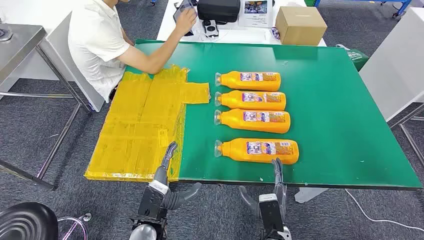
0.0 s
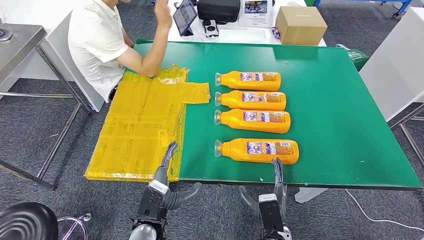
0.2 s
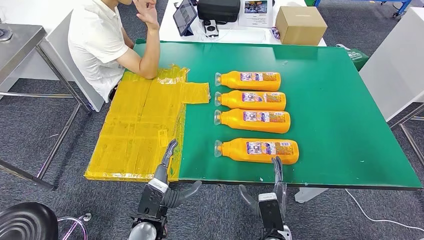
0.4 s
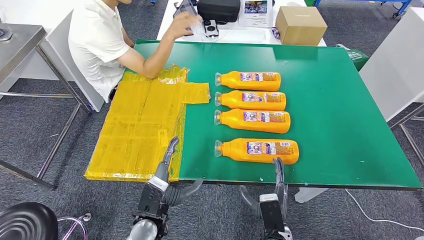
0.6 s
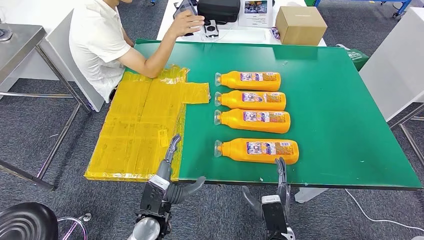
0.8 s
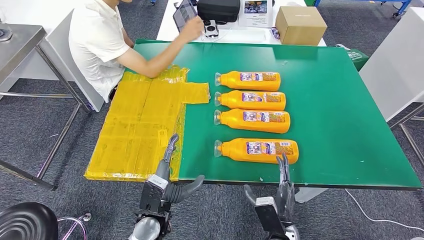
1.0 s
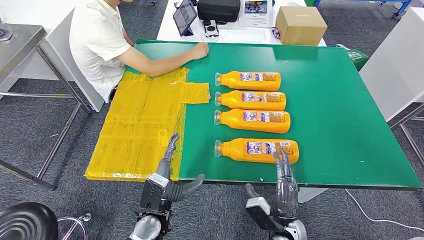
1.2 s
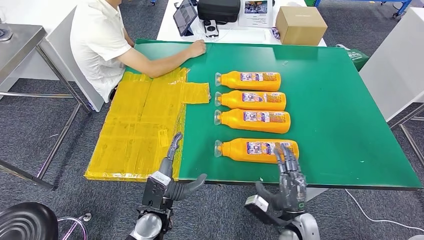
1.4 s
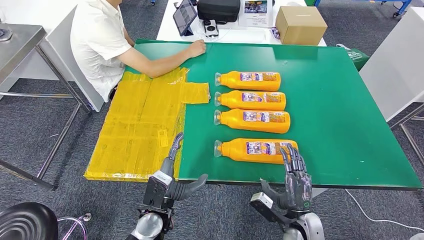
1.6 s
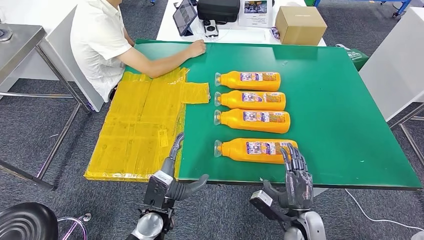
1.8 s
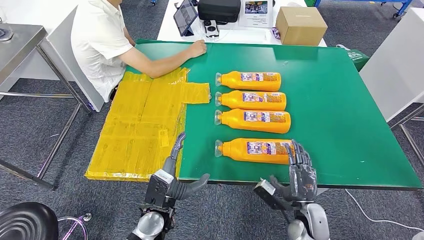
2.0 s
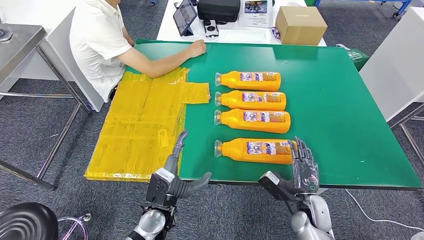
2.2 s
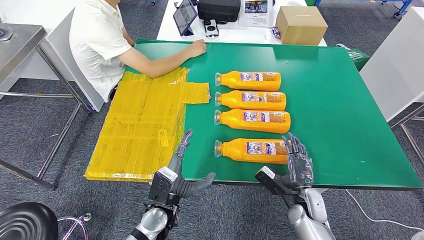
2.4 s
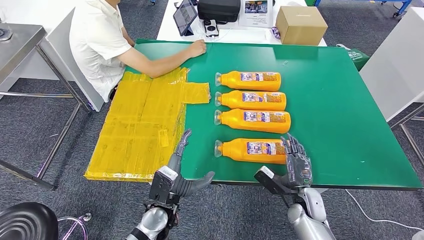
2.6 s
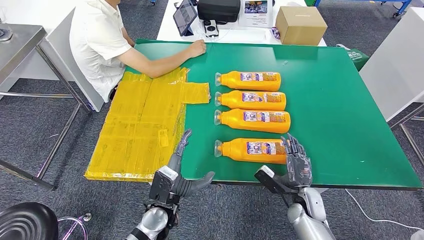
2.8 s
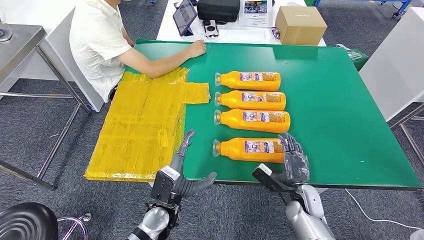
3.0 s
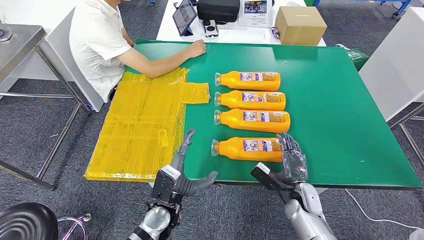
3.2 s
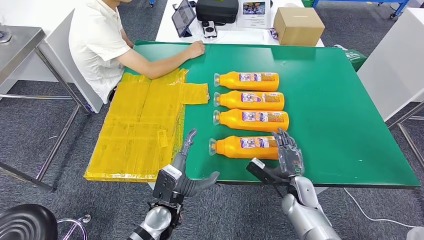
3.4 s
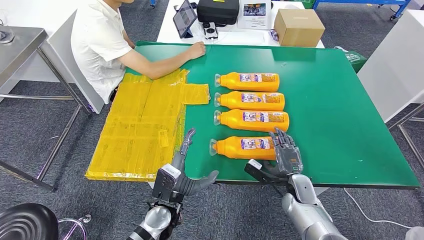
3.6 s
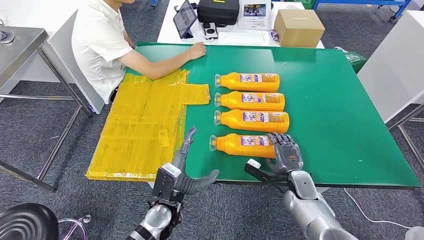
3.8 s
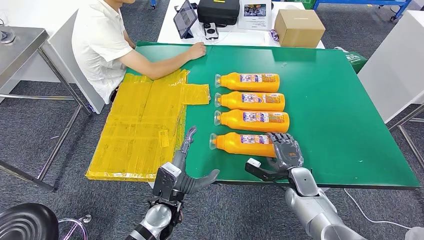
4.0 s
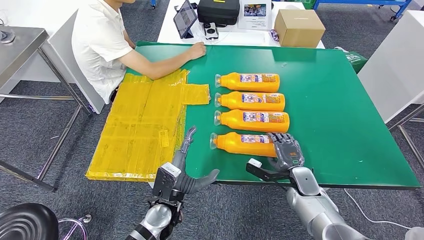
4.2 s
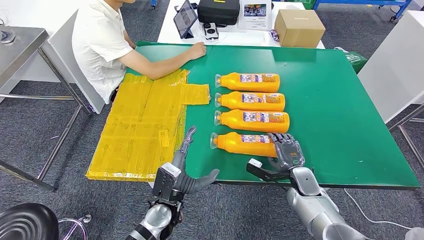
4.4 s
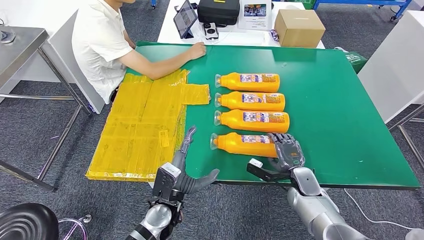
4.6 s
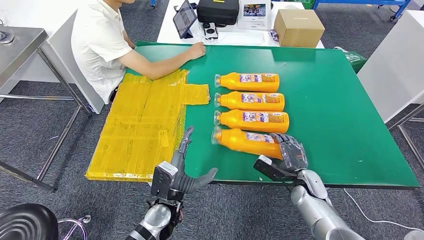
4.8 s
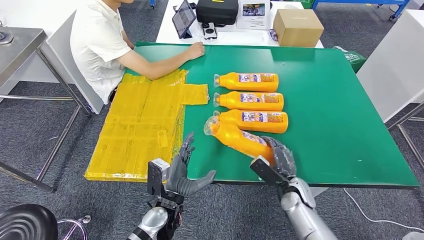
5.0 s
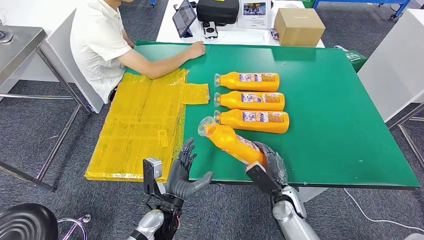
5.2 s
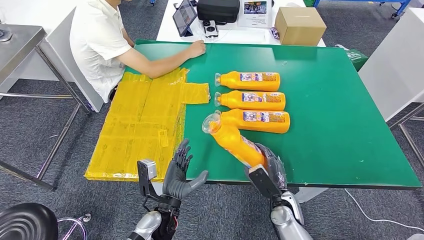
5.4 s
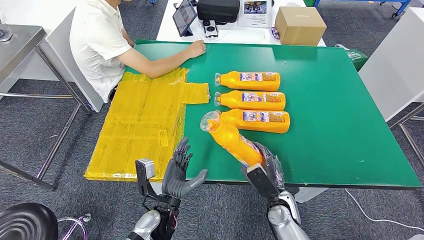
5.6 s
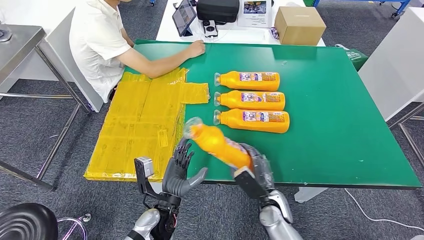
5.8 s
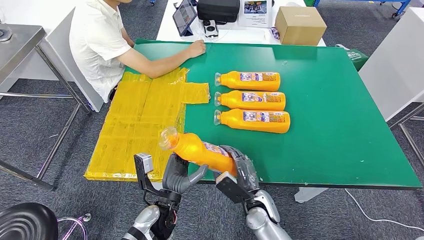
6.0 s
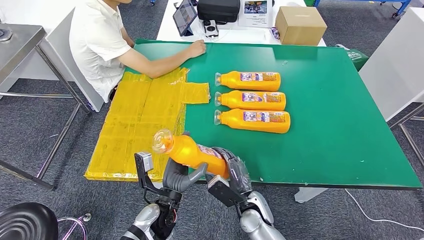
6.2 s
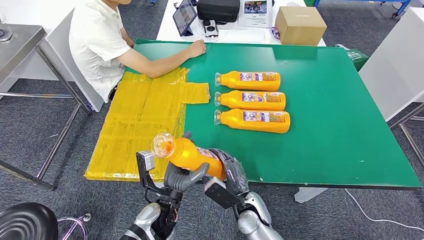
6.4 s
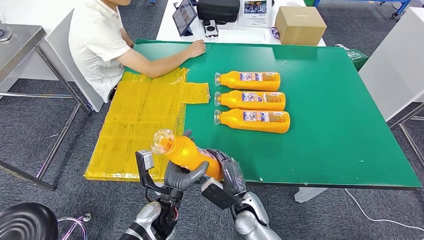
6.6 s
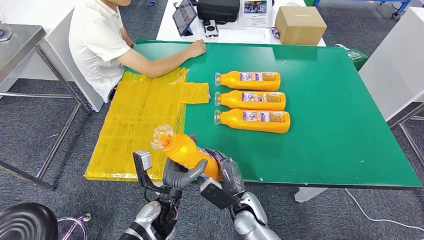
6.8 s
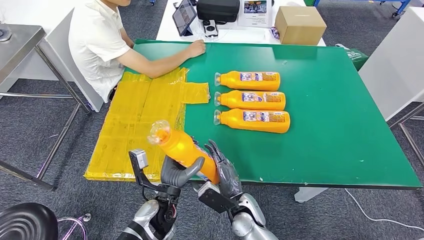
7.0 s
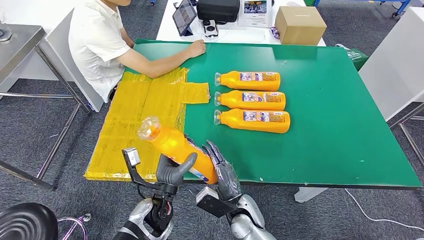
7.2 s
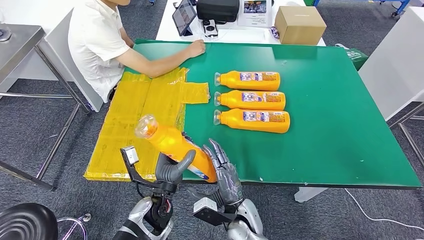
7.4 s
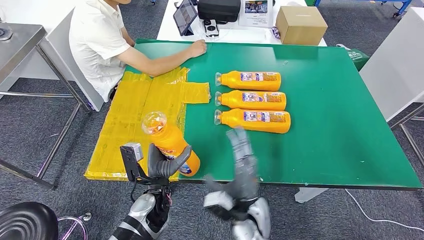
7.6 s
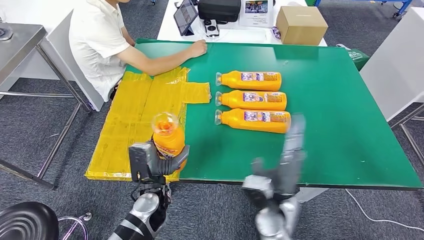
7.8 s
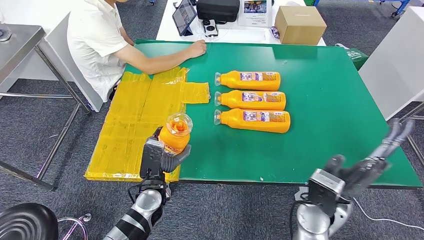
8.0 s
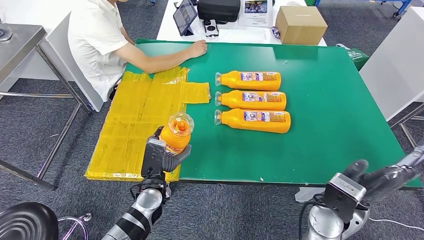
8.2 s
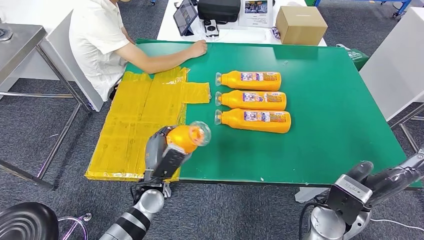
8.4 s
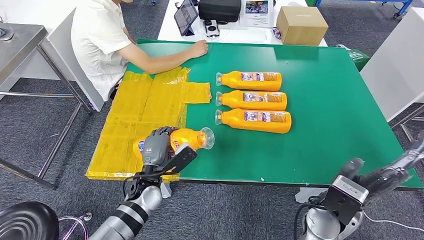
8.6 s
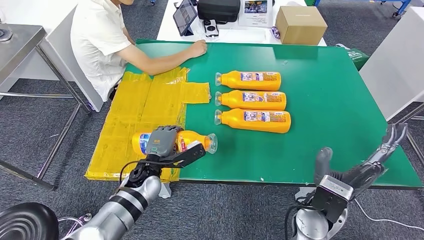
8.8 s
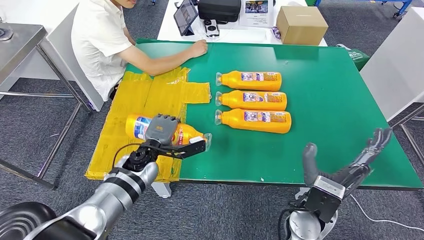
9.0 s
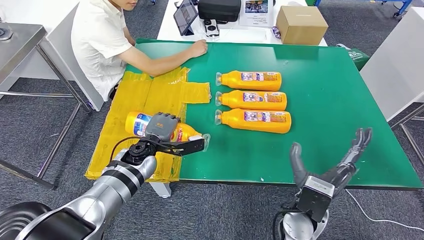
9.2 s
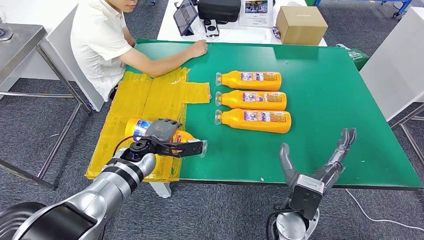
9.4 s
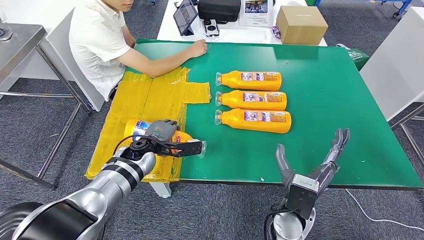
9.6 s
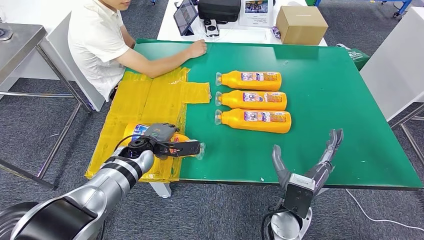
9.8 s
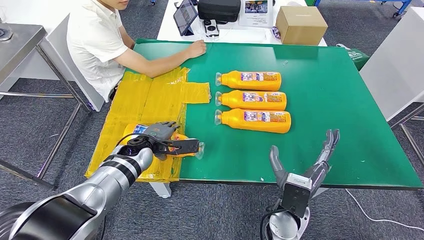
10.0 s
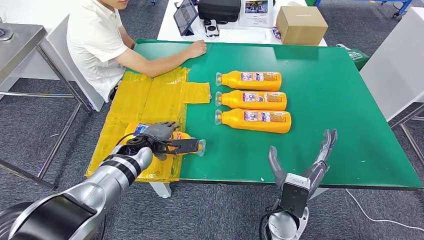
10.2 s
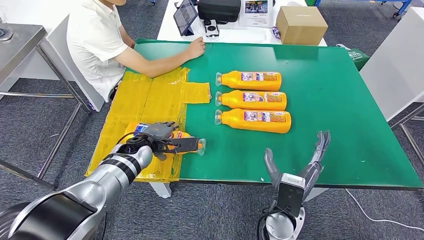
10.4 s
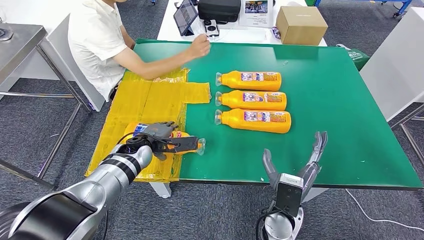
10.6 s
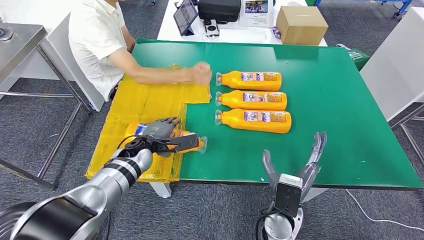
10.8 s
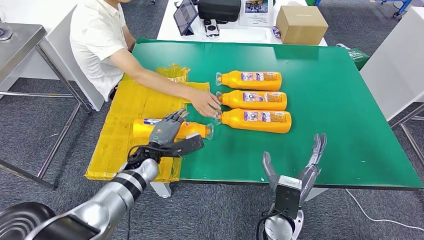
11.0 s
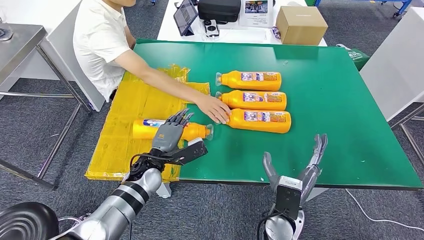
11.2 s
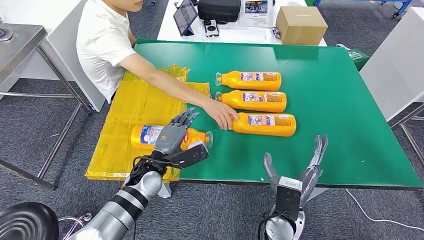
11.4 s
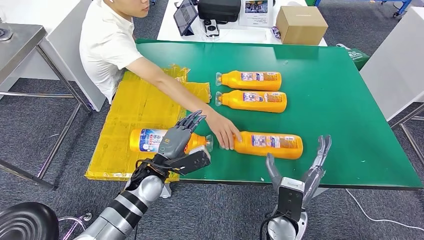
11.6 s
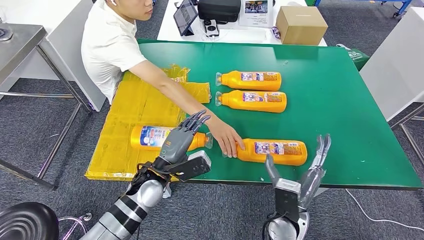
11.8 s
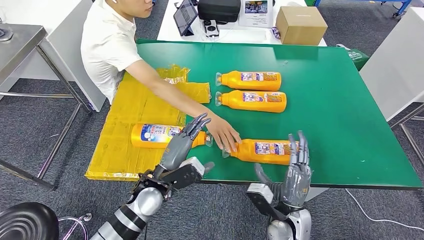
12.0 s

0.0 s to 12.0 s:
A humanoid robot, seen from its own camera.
Step, 0.0 to 6.0 s: Take the bottle from the table.
Step, 6.2 to 10.2 s: Flip the bottle to face forward.
1.6 to 3.0 s: The right hand moves forward, about 5 cm.
6.0 to 7.6 s: The right hand is displaced upward by about 5 cm.
7.6 to 9.0 s: The left hand heads forward, covering about 10 cm. The right hand is displaced to the right and upward by some 15 cm.
9.0 to 10.4 s: The right hand ends up approximately 5 cm from where it was.

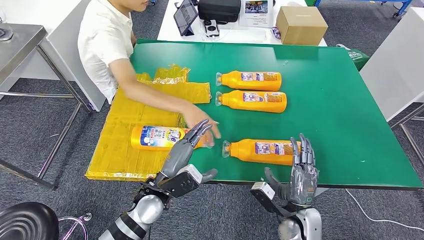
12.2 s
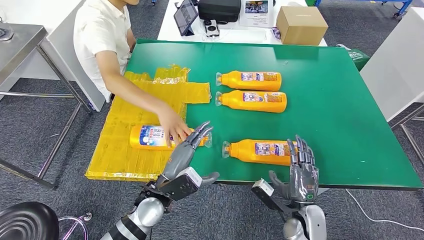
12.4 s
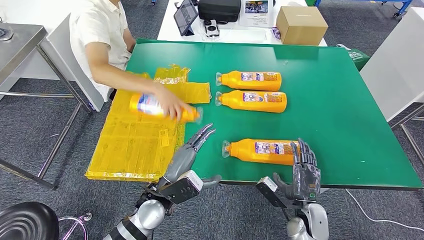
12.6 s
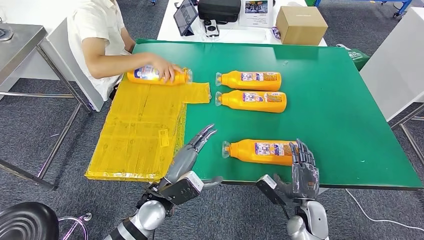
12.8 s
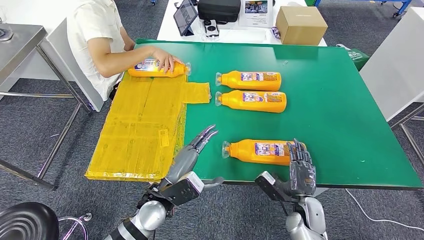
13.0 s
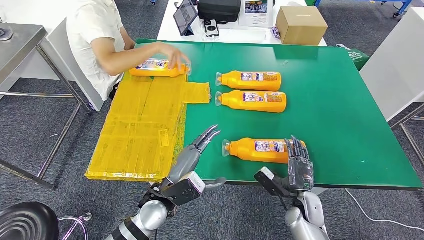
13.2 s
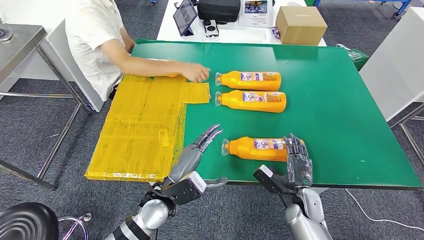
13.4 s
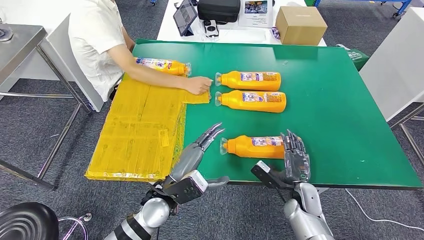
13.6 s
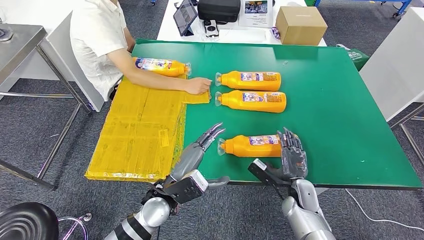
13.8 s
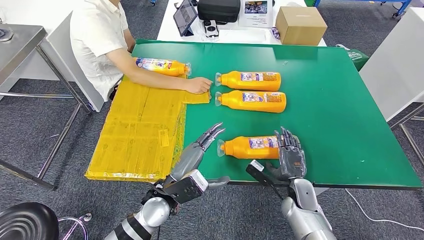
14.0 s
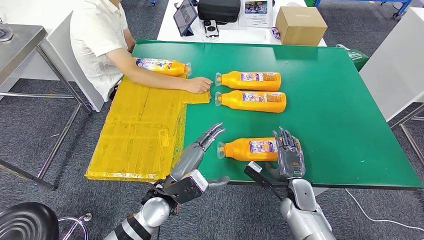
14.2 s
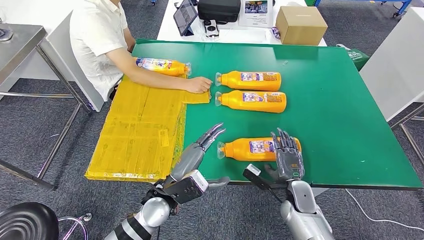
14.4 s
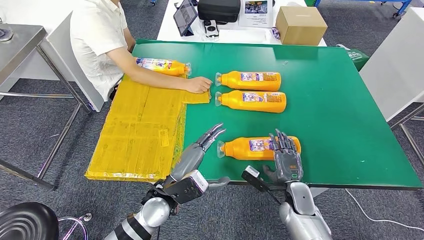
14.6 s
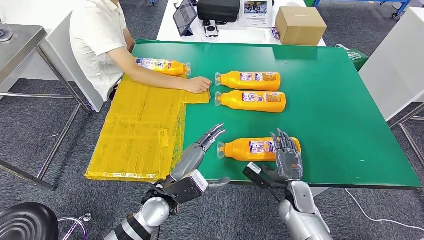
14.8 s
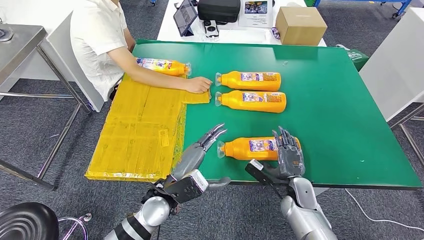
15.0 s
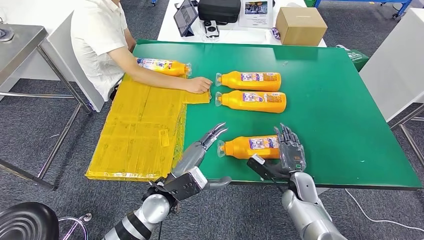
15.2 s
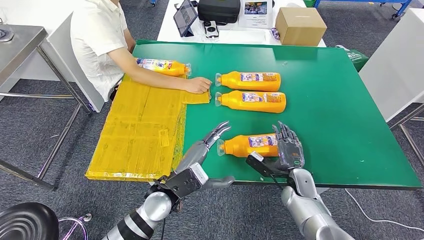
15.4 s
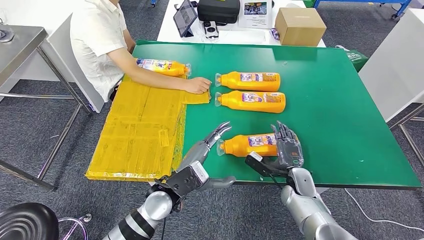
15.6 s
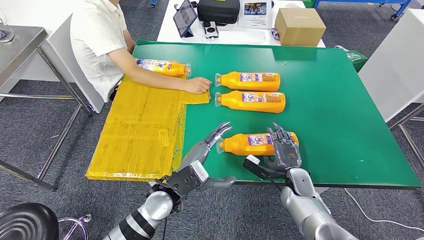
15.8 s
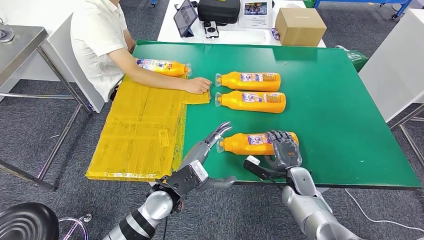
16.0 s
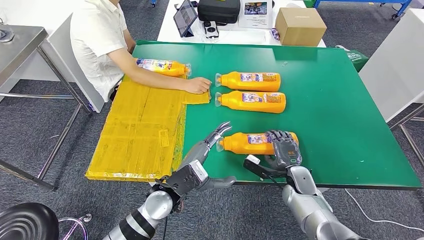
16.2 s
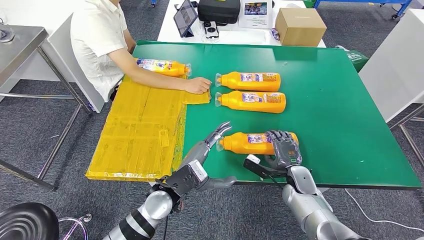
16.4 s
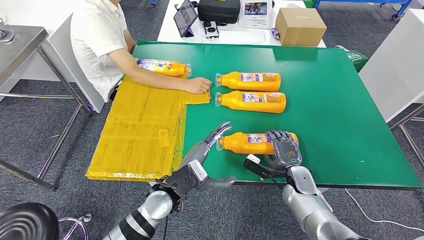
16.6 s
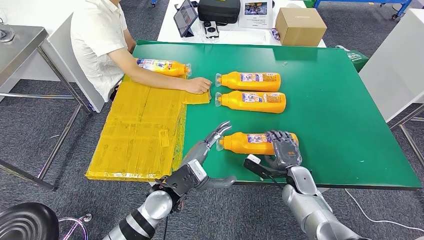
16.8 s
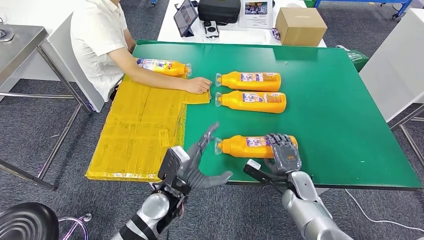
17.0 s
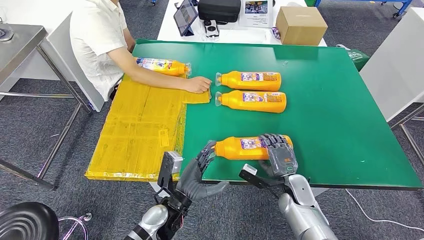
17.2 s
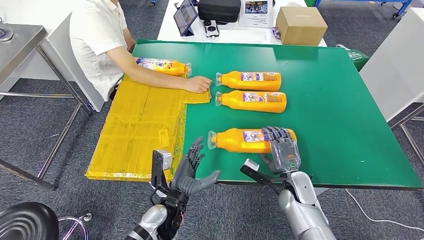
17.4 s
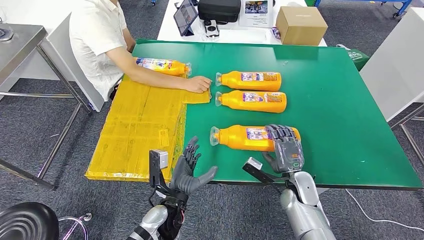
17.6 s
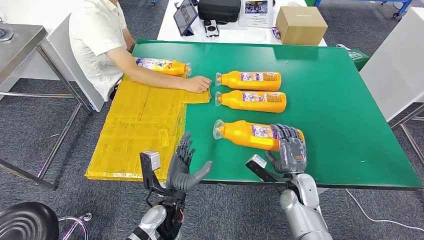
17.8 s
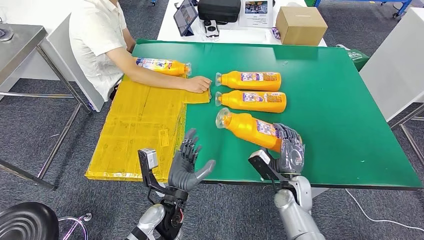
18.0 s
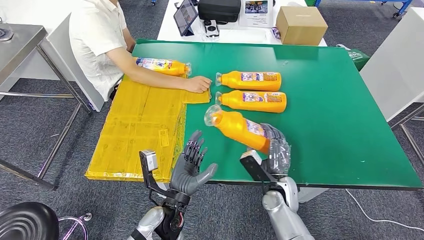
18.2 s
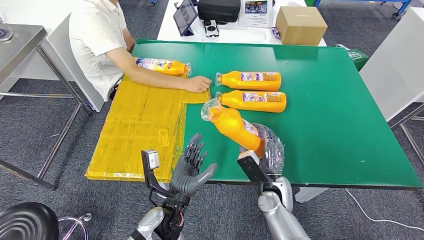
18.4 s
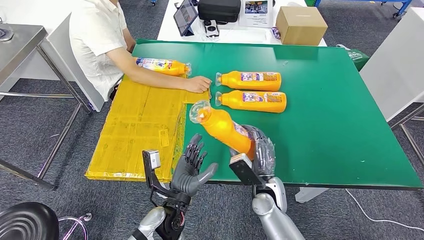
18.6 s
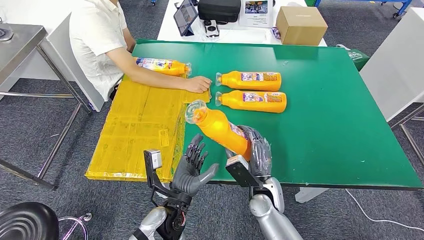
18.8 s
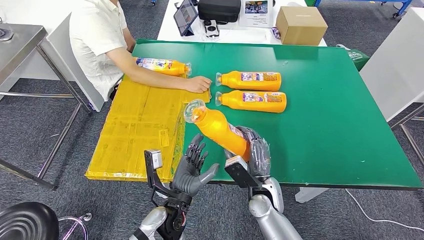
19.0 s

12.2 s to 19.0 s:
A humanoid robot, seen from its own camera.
12.2 to 13.6 s: The right hand travels forward by about 5 cm.
13.6 to 16.2 s: The hands make only small movements.
16.2 to 17.6 s: The left hand heads downward, covering approximately 5 cm.
17.6 to 19.0 s: The right hand is displaced to the left by about 10 cm.
